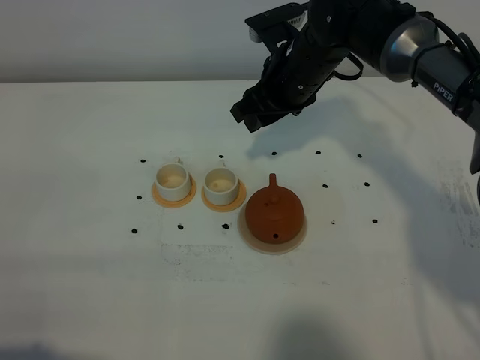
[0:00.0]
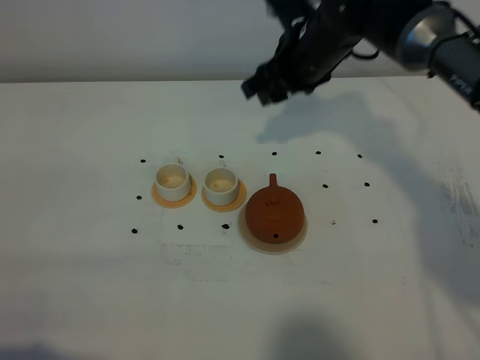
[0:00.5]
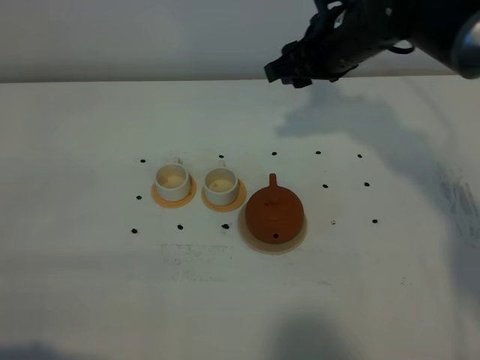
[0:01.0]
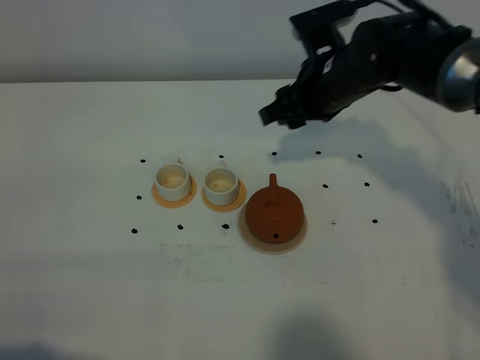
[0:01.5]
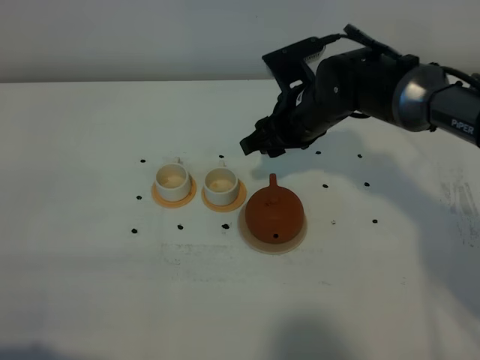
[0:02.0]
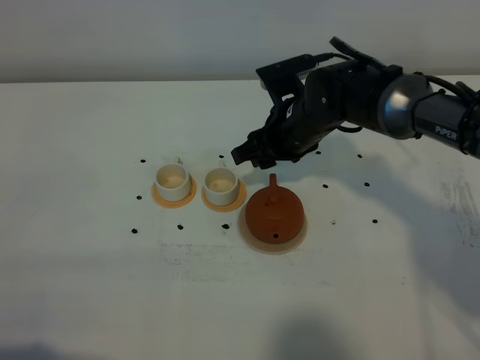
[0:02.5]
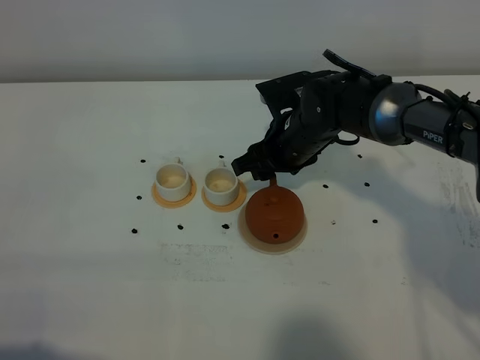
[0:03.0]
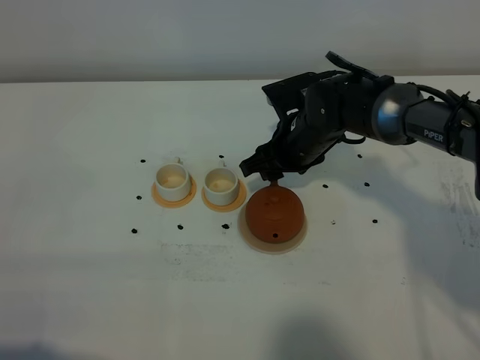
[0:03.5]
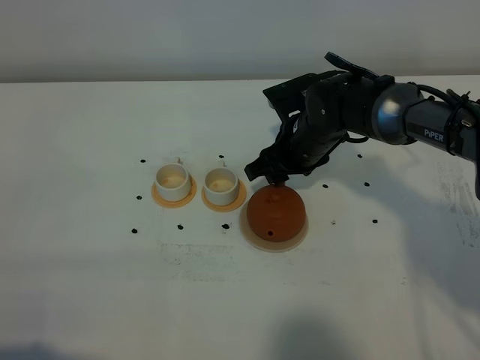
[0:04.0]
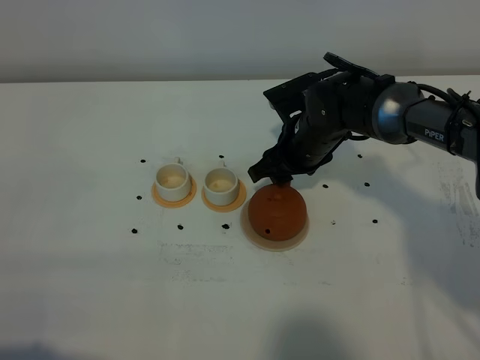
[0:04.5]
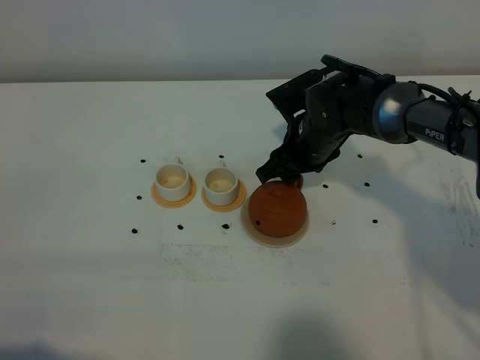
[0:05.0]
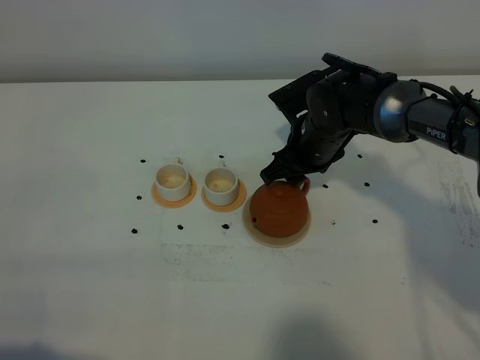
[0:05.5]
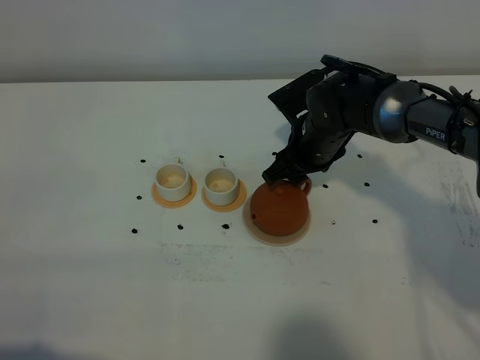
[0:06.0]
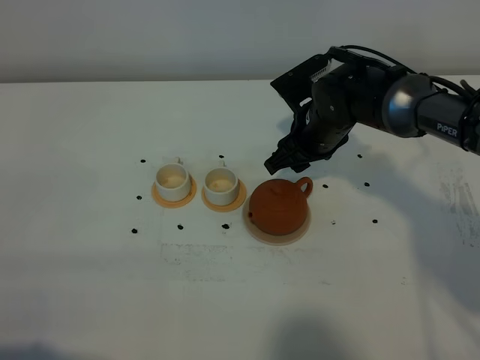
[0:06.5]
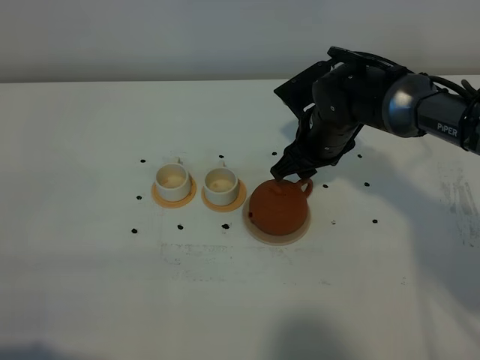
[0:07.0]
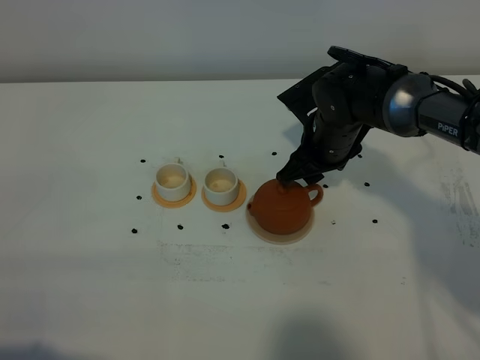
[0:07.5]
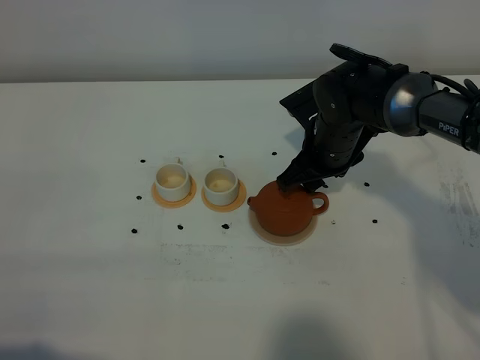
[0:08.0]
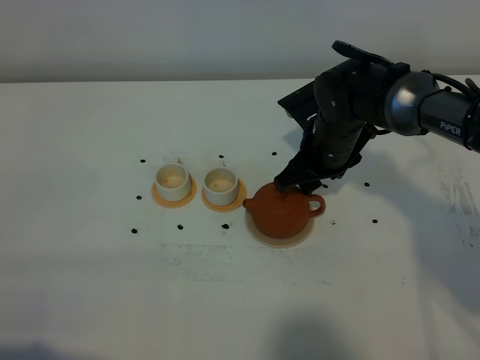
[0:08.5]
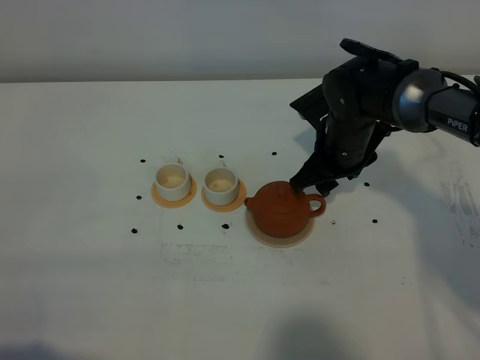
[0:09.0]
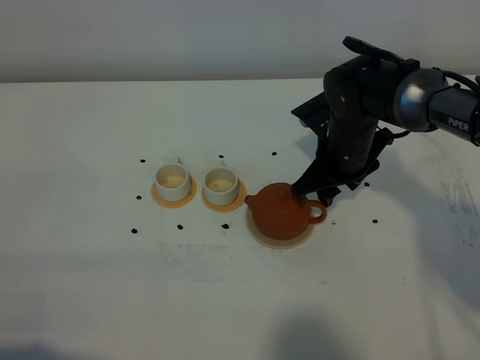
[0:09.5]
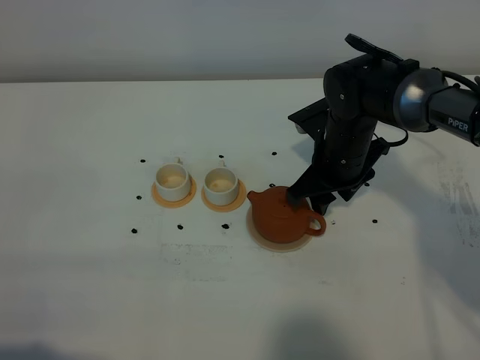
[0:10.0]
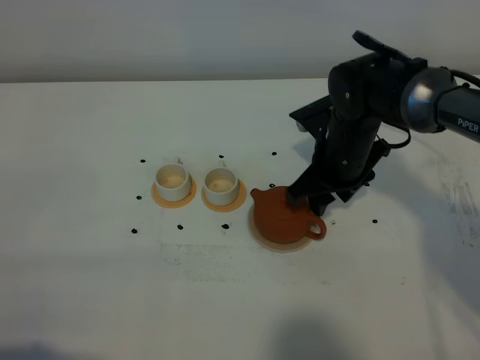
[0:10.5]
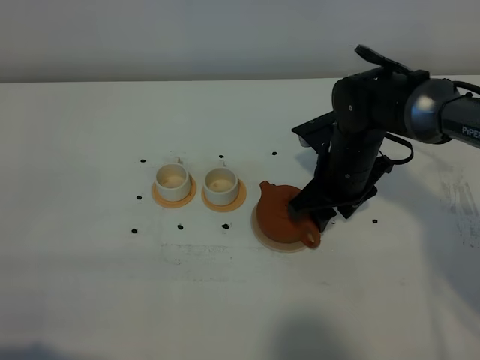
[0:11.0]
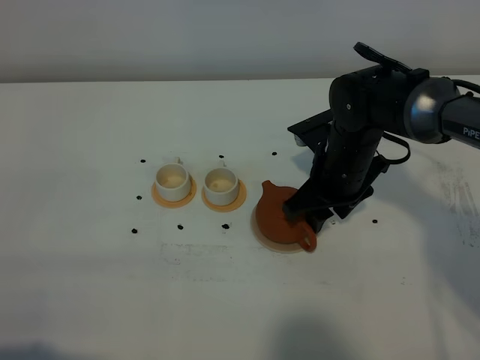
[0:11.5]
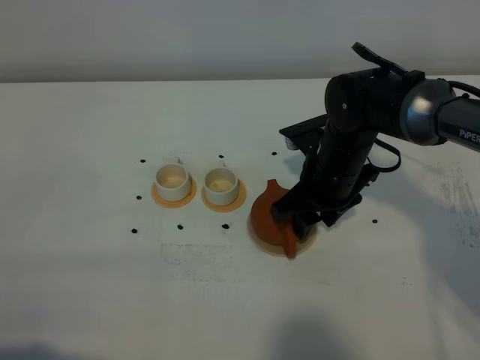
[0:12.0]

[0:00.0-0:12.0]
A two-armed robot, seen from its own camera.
Task of the whole recording: grasp the brown teapot and pour the tea into the two white teacups one by one, put the brown teapot back in its original place.
0:00.0 to 0:02.0: The right gripper changes place by approximately 5 cm.
0:02.0 to 0:06.0: The grippers make only small movements.
0:06.0 to 0:10.0: There are only small adjustments of the grippers.
0:10.0 to 0:12.0: There are only small adjustments of the grippers.

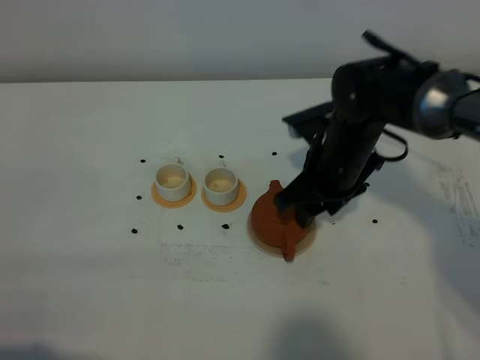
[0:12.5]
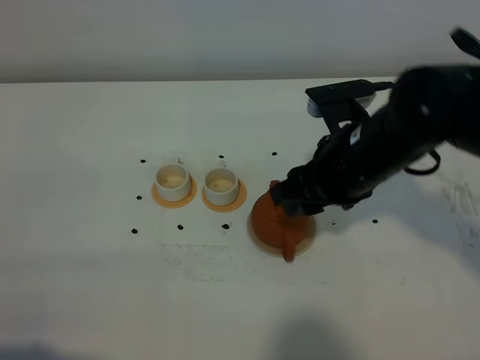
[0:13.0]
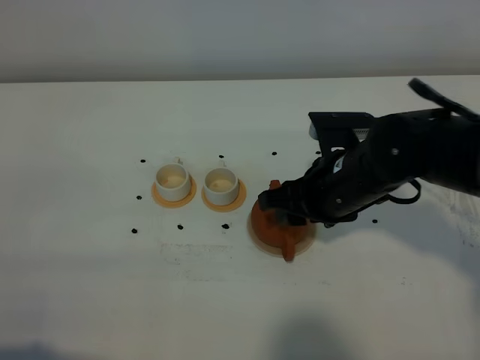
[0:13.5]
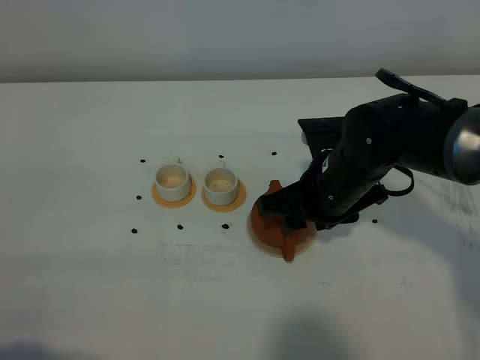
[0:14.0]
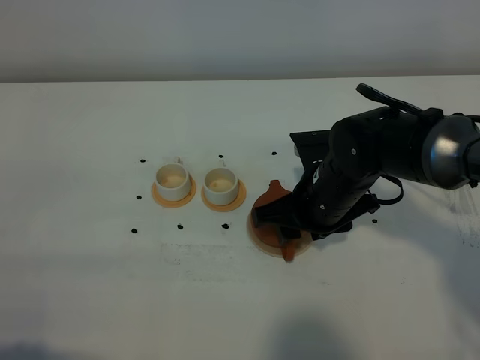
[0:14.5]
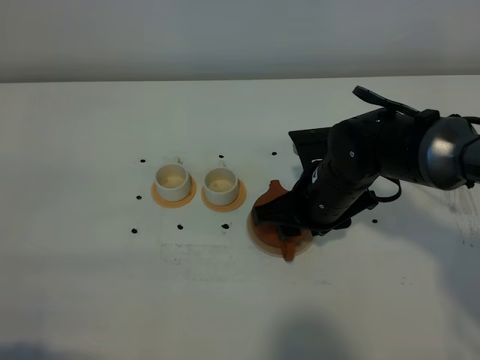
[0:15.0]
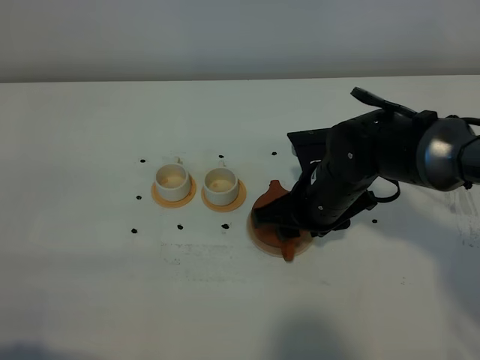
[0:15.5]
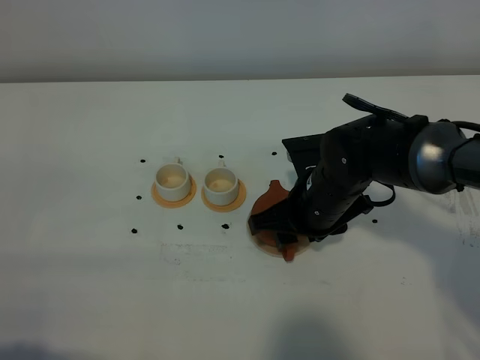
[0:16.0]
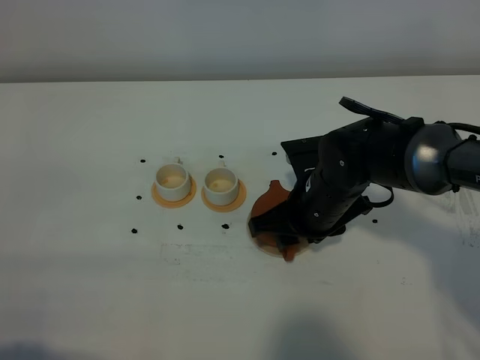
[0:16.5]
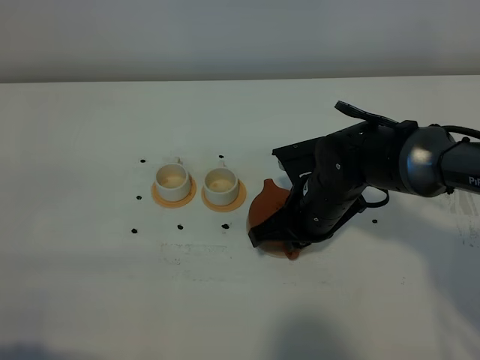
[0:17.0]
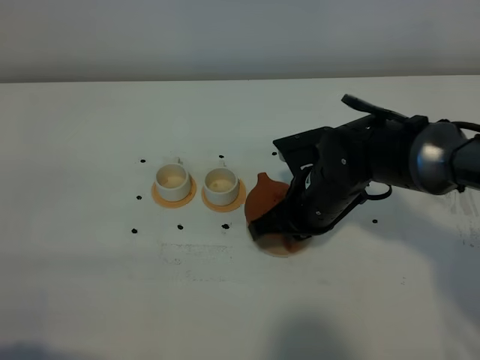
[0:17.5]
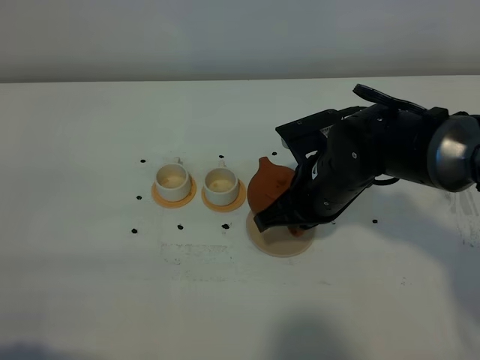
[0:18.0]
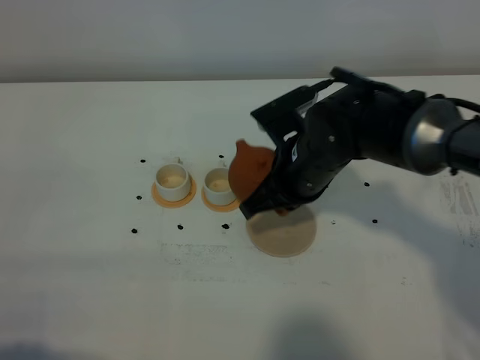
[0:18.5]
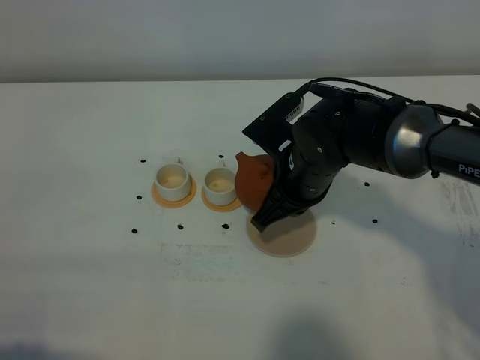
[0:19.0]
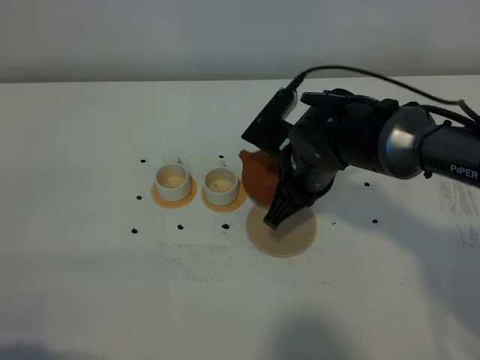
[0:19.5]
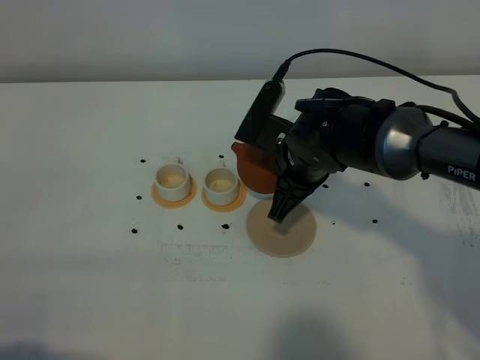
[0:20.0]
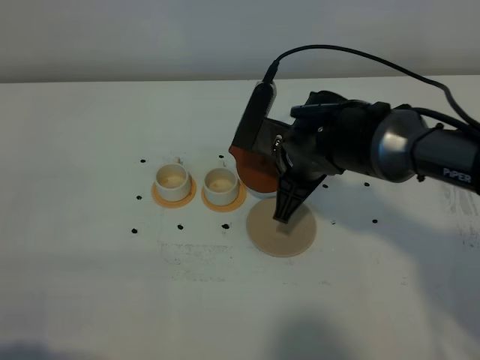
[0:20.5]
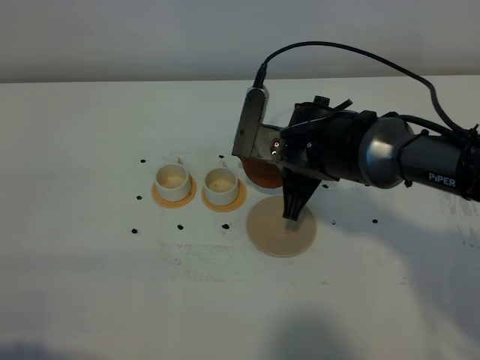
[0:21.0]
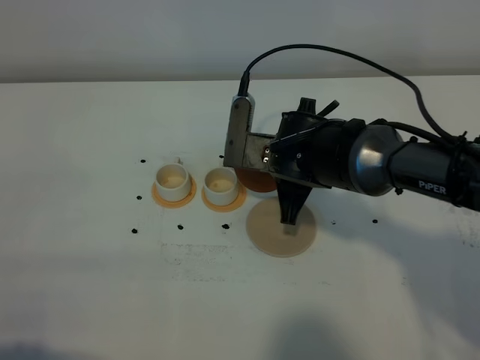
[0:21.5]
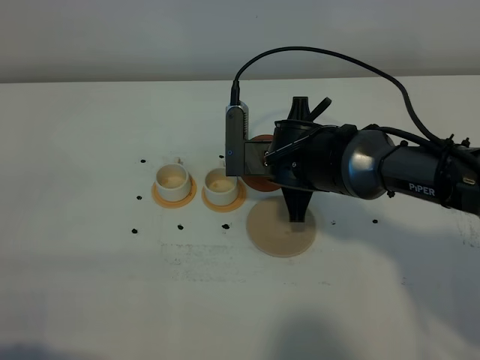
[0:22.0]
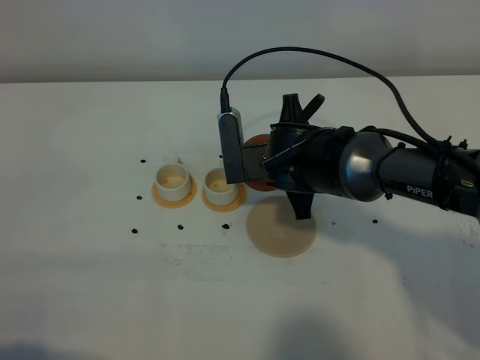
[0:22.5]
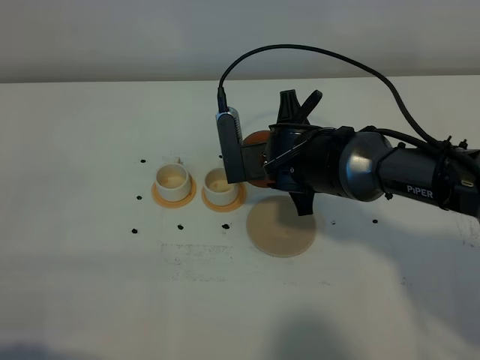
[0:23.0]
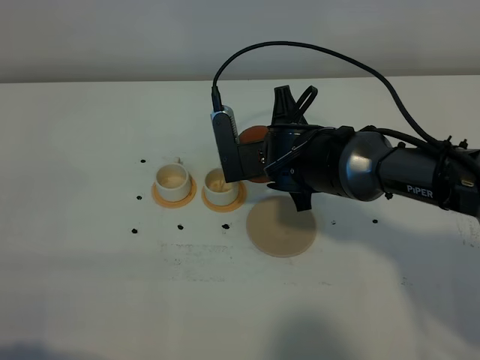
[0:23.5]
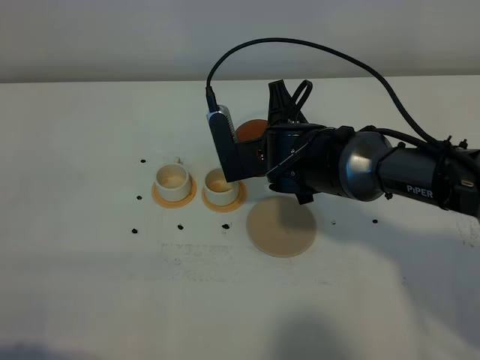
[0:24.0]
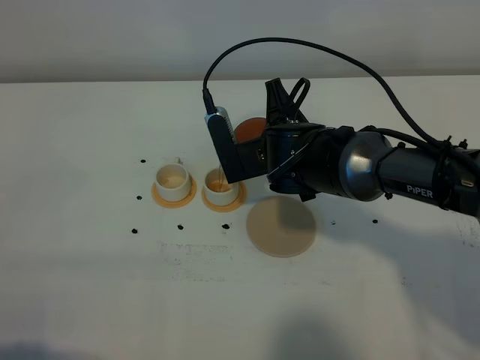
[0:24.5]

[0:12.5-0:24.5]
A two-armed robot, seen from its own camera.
Task of the whole recording: grasp the brown teapot and pour the tea into the two white teacups one by one, put the brown teapot back in its original place.
Step, 0:12.5 to 0:17.5: Pick up the teapot with the right gripper.
0:12.5 to 0:14.5: The right gripper moves some 5 cm upward and comes back.
0:14.5 to 0:16.5: The grippers make only small movements.
0:16.5 to 0:18.5: The right gripper closes up.
0:22.5 to 0:24.5: There are only small adjustments of the grippers.

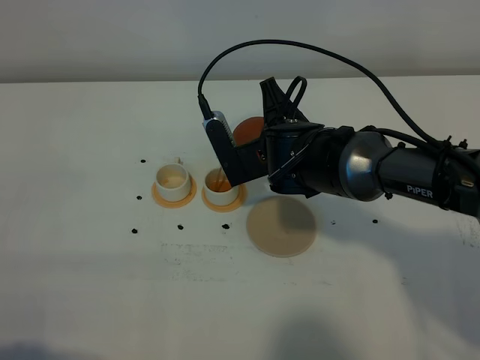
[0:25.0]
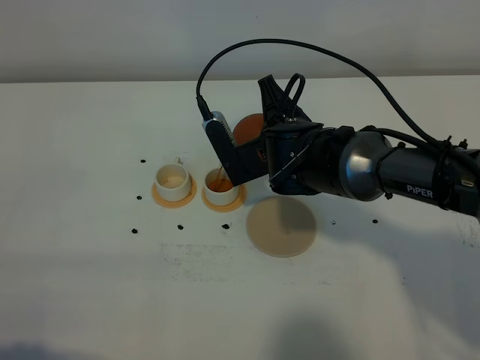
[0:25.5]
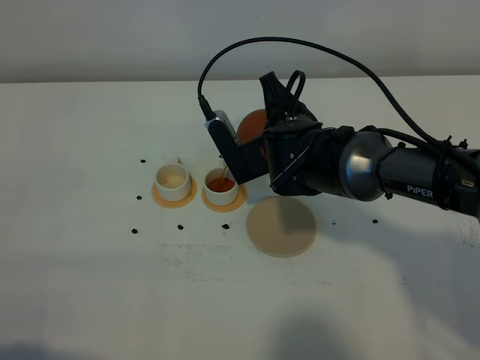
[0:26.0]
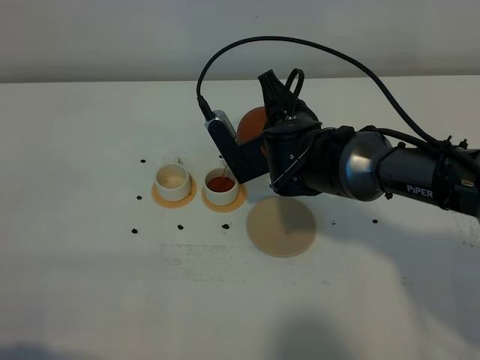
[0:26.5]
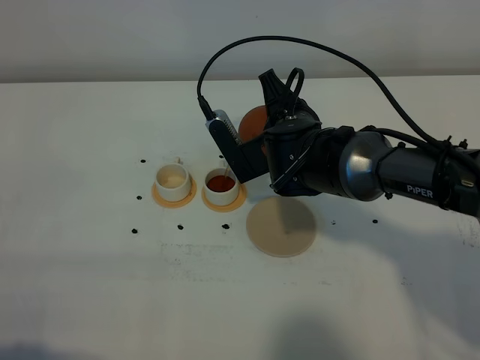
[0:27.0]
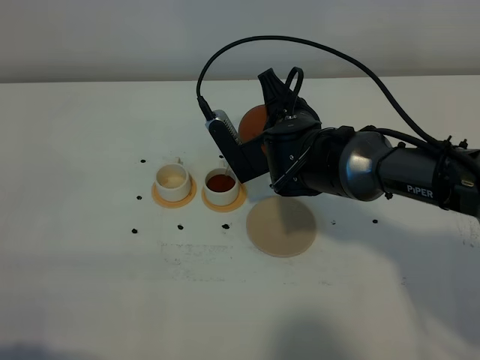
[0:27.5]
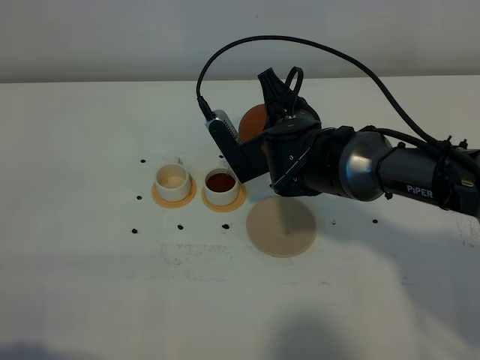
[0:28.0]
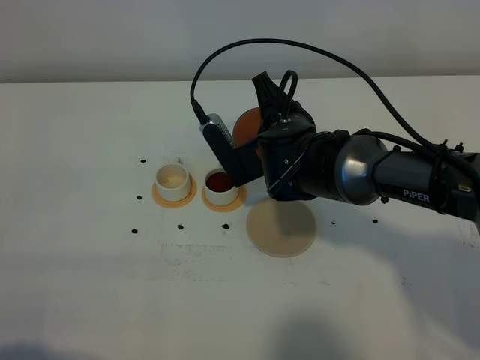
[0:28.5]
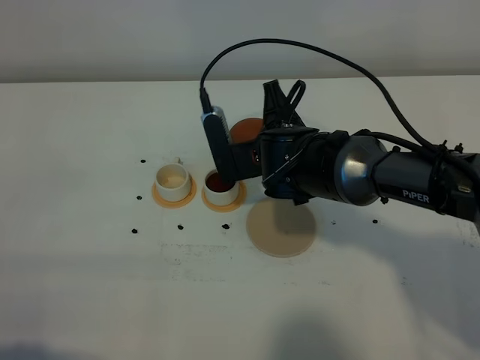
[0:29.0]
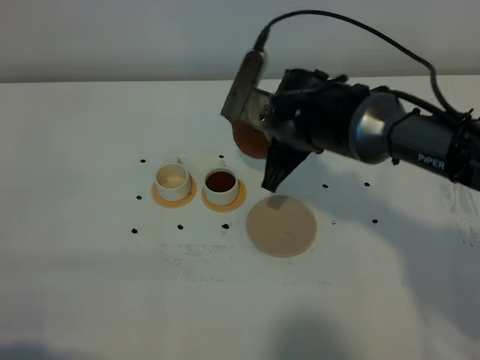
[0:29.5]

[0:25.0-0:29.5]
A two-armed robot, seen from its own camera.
Task of the whole recording: grasp the brown teapot and pour the tea into the two white teacups one by one, put the brown teapot back in its original place.
0:25.0 to 0:27.0: The grippers make only small movements.
